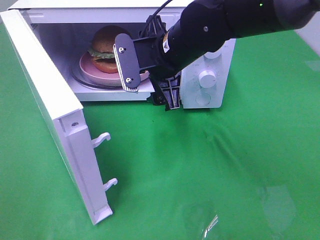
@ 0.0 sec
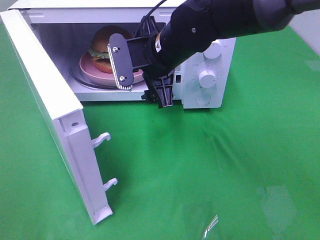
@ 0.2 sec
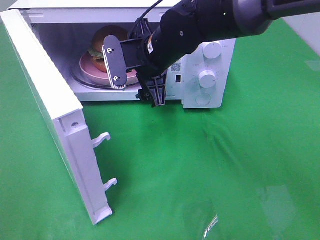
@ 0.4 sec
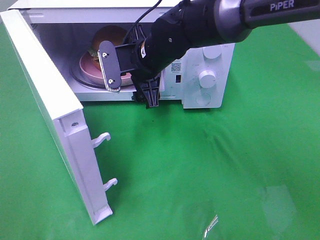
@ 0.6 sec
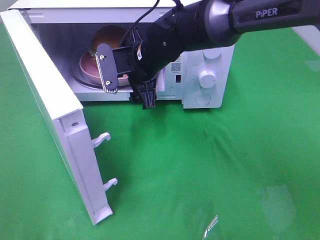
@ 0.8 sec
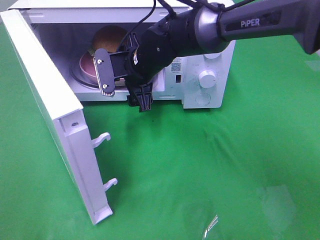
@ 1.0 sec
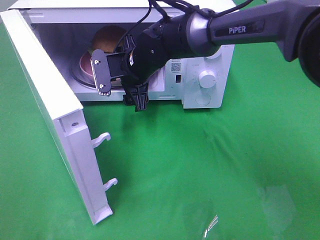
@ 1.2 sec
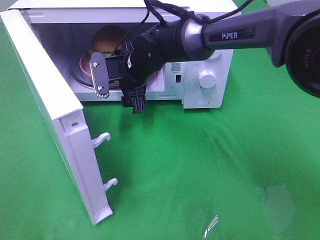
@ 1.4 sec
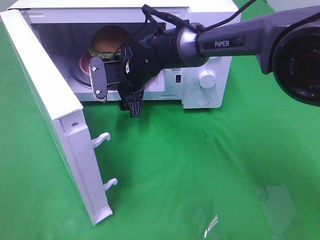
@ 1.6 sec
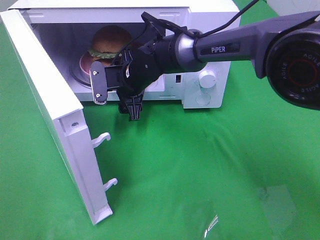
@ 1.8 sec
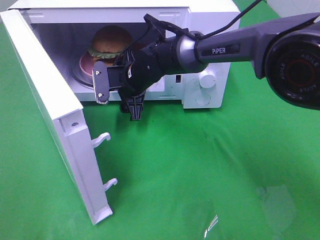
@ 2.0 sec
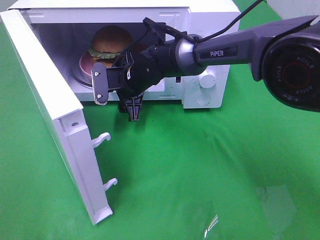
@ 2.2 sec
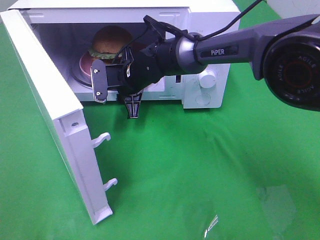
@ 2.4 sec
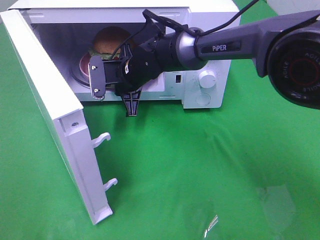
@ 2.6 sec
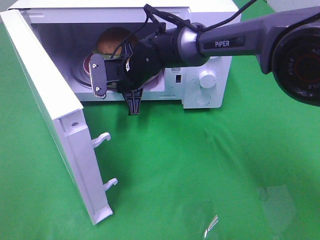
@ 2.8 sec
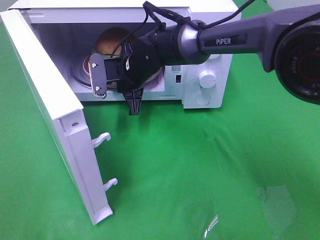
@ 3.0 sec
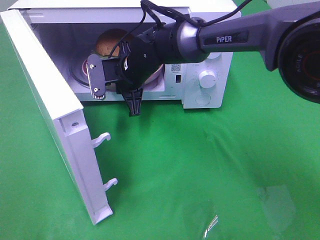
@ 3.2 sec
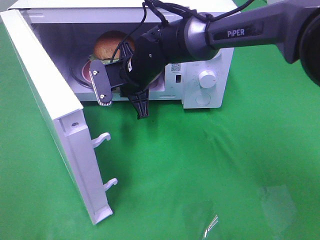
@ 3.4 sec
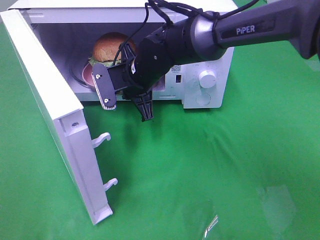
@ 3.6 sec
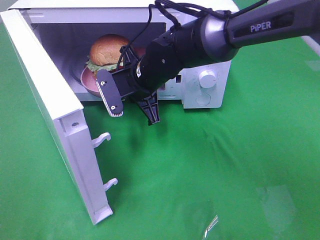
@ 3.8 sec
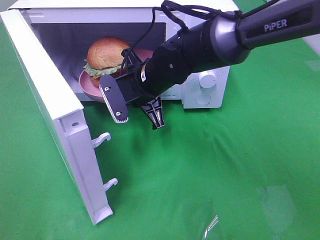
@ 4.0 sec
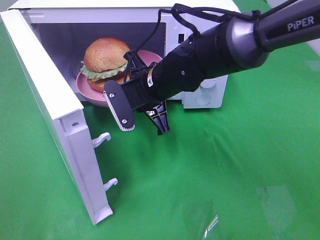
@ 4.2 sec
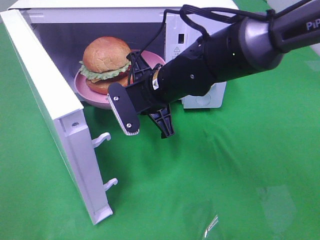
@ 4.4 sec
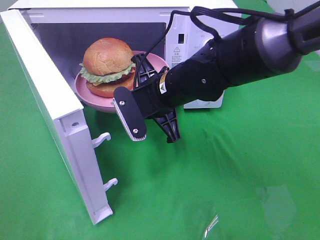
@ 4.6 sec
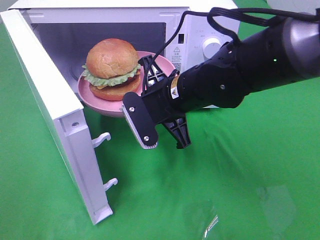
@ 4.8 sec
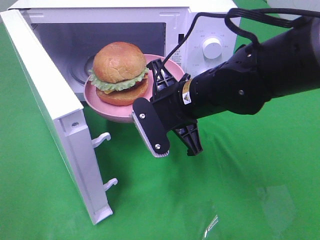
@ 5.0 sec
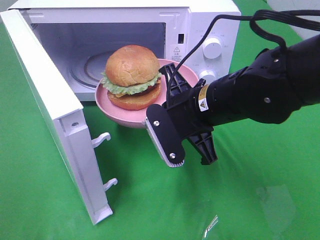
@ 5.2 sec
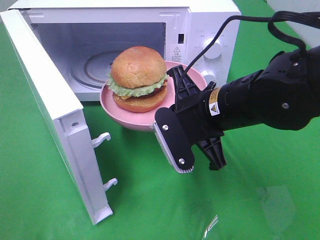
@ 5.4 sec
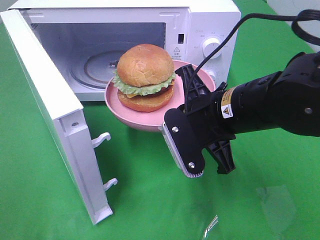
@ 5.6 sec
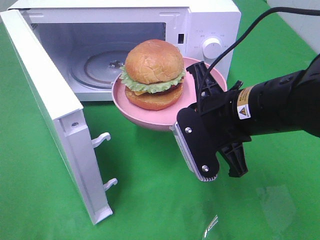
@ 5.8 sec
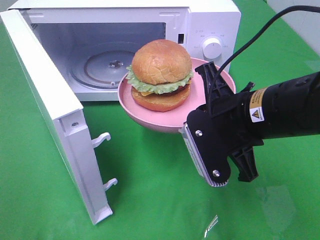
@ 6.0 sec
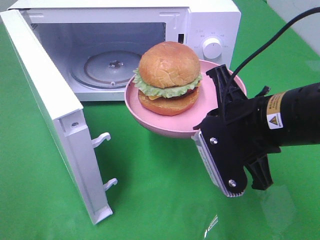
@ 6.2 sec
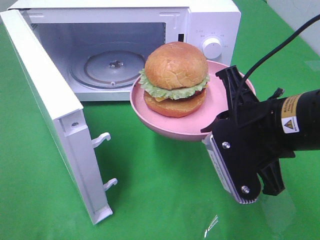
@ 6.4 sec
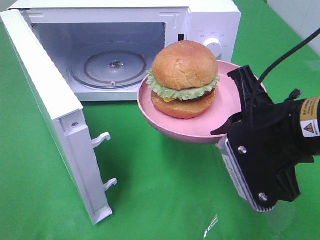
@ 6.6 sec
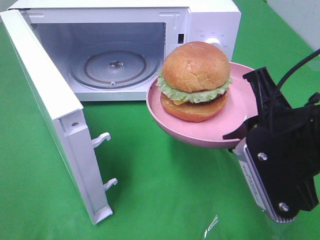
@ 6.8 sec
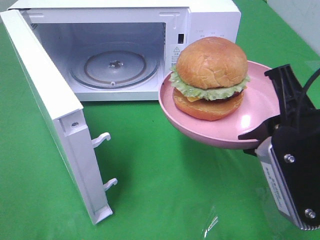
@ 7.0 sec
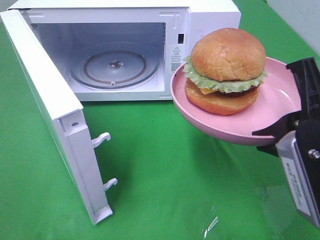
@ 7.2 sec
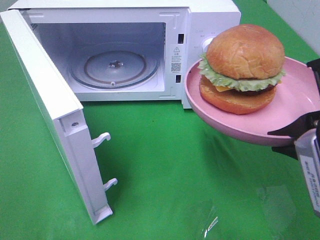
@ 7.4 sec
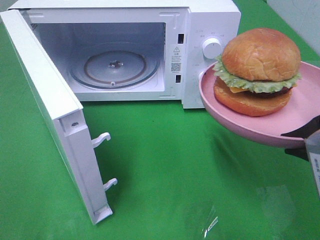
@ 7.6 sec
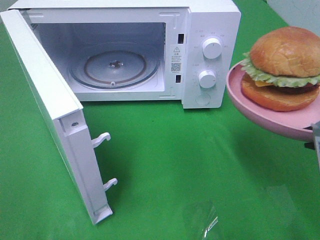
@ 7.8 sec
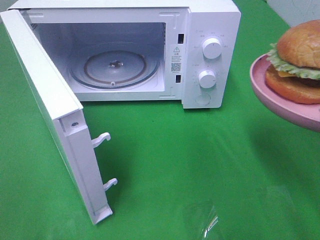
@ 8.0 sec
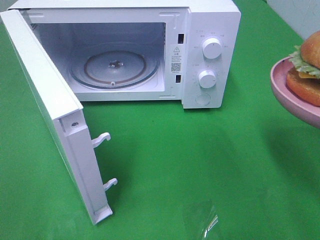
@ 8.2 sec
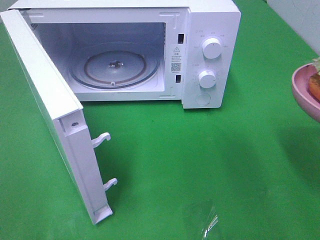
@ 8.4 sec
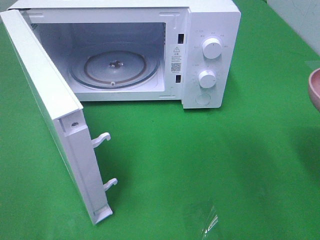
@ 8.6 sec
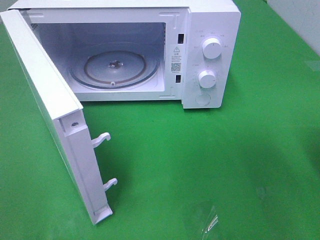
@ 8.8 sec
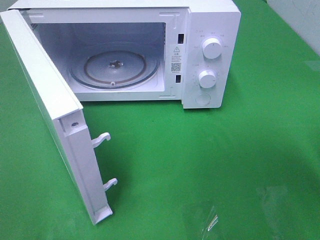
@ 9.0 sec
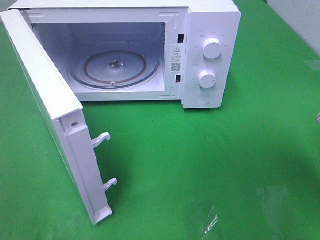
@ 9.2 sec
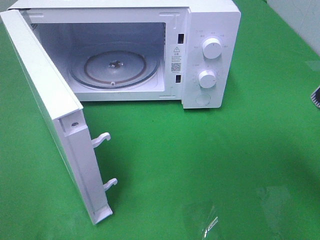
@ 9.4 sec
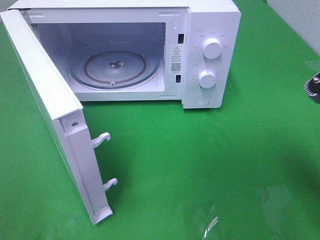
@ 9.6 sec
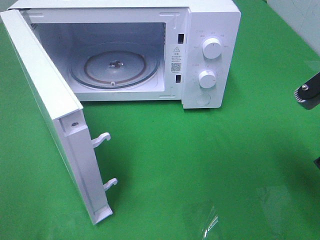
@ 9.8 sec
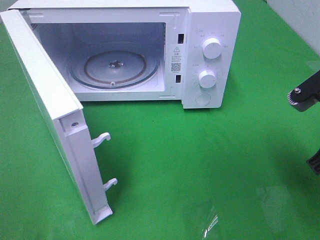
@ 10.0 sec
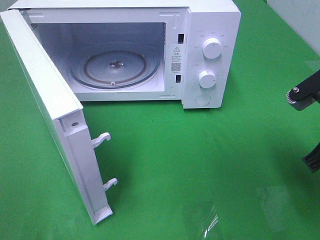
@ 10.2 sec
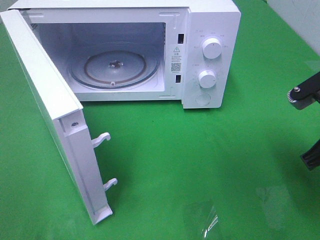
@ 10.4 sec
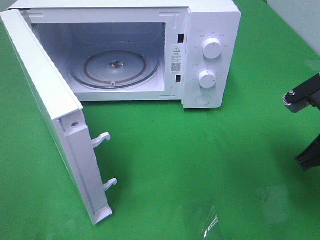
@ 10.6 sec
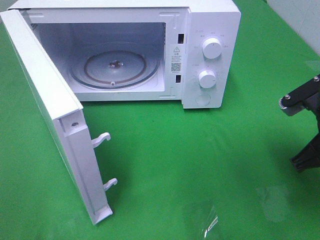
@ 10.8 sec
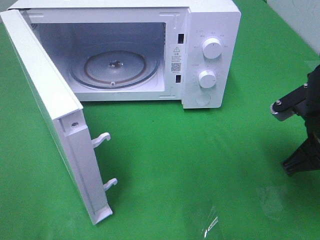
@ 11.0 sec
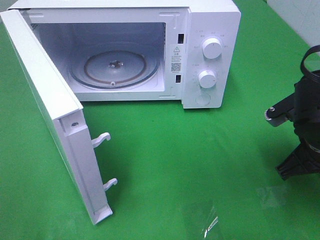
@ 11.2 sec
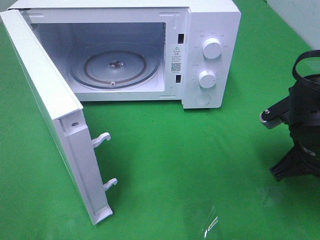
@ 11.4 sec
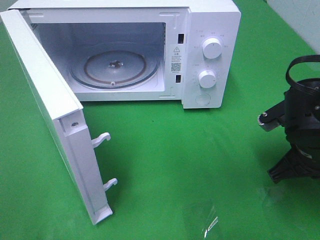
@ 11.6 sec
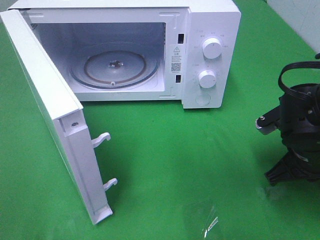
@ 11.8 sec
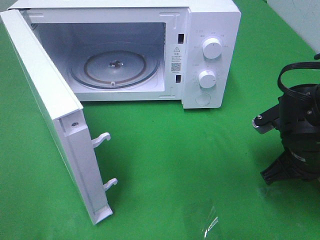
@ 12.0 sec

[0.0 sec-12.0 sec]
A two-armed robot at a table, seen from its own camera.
Task of the whole recording: Heat the burger.
Step, 0.0 sec to 2.6 sec: Right hand: grab the plate with the hamburger.
0.0 sec to 1.6 sec: The right gripper is displaced downward, forward and to the left by approximately 15 cm.
1.6 sec to 3.0 sec: The right gripper closes up.
3.0 sec to 4.4 sec: The right gripper shifts approximately 10 cm backward and to the right.
4.4 sec to 6.0 sec: The right gripper travels backward and to the right by about 15 cm.
6.0 sec to 7.6 sec: The right gripper travels to the right, backward and upward by some 15 cm.
9.0 sec to 10.4 sec: The right gripper travels forward by some 5 cm.
10.4 sec to 12.0 sec: The right gripper moves downward, roughly 10 cm.

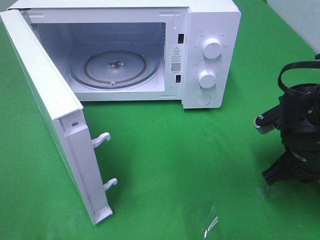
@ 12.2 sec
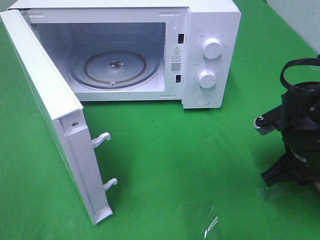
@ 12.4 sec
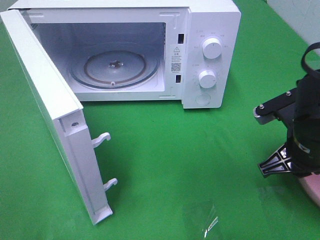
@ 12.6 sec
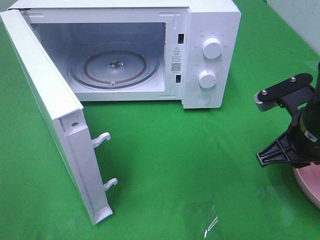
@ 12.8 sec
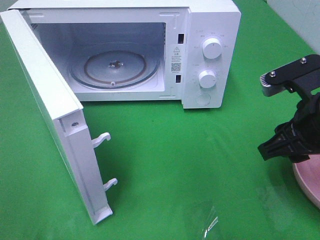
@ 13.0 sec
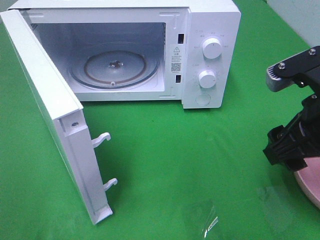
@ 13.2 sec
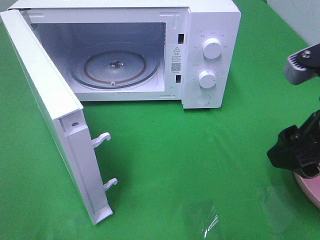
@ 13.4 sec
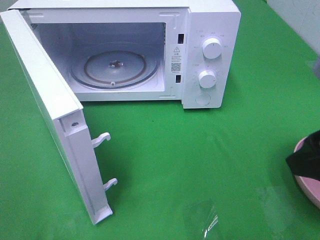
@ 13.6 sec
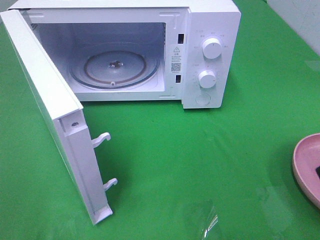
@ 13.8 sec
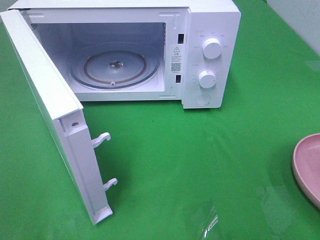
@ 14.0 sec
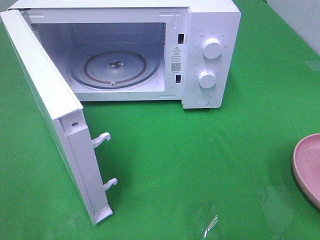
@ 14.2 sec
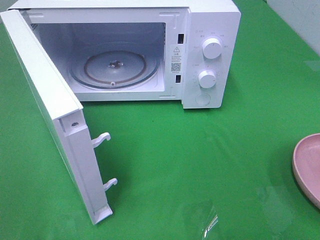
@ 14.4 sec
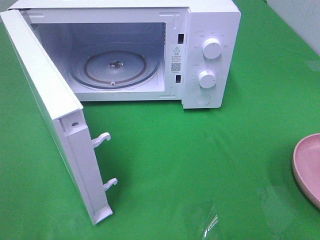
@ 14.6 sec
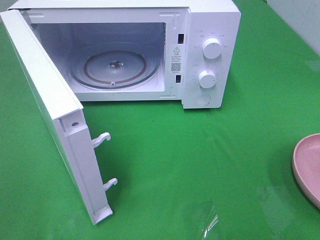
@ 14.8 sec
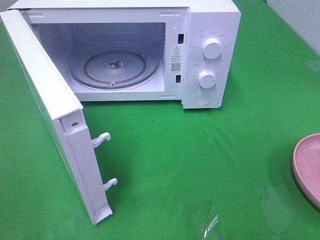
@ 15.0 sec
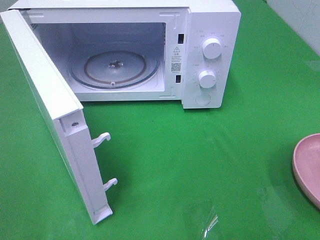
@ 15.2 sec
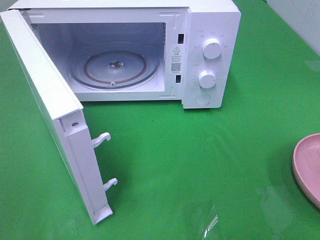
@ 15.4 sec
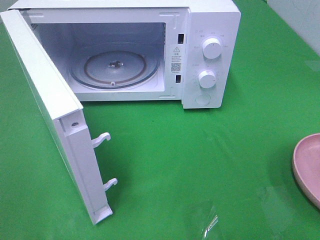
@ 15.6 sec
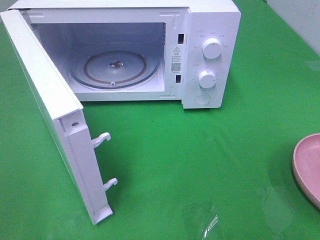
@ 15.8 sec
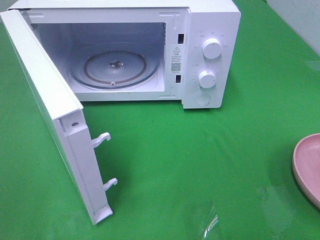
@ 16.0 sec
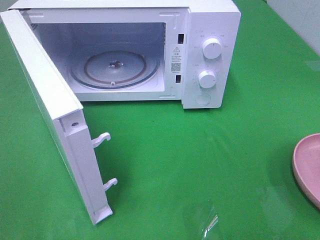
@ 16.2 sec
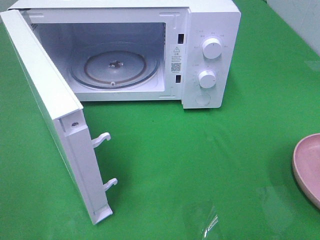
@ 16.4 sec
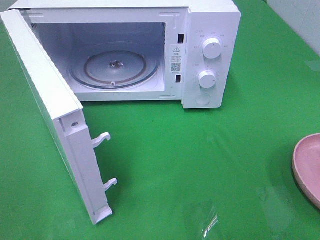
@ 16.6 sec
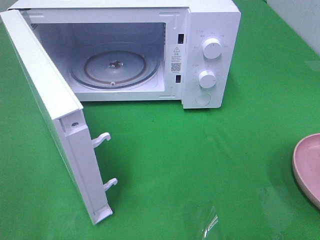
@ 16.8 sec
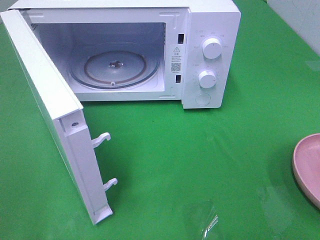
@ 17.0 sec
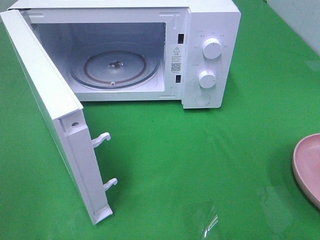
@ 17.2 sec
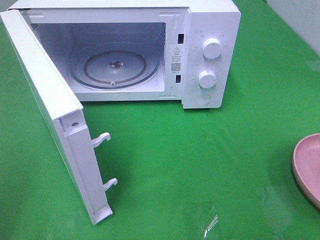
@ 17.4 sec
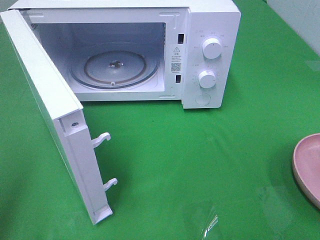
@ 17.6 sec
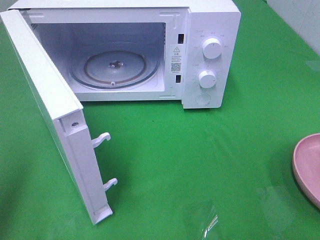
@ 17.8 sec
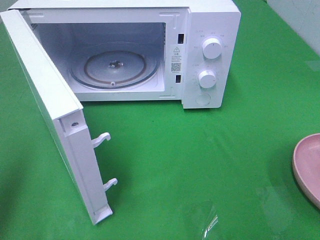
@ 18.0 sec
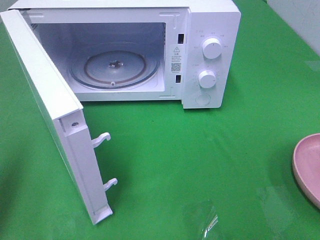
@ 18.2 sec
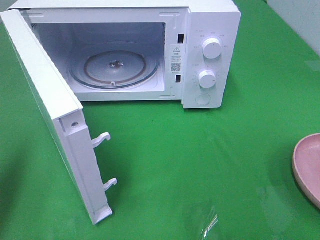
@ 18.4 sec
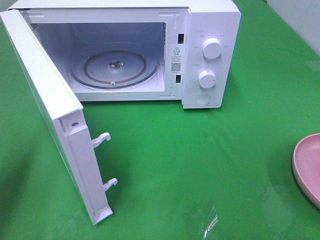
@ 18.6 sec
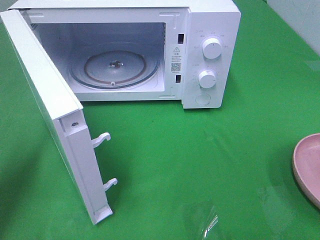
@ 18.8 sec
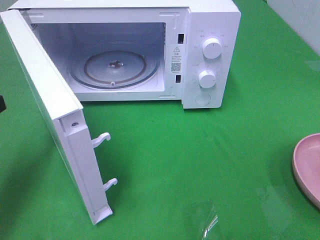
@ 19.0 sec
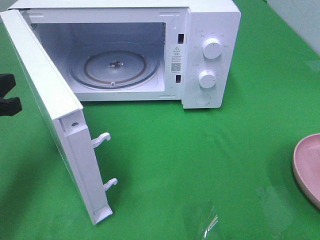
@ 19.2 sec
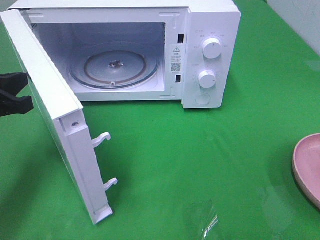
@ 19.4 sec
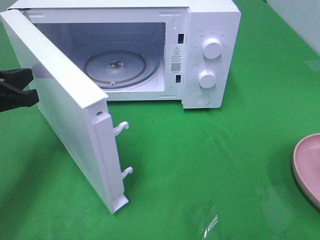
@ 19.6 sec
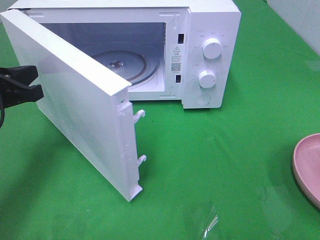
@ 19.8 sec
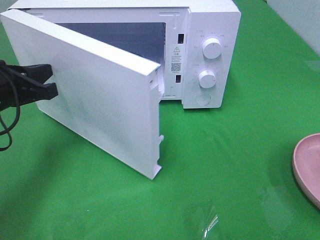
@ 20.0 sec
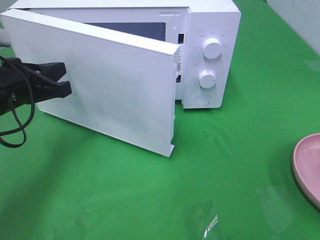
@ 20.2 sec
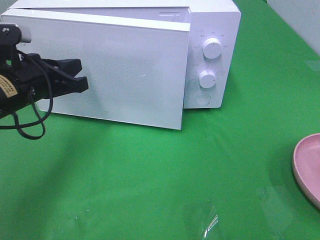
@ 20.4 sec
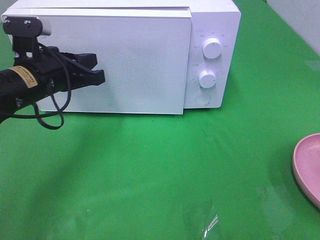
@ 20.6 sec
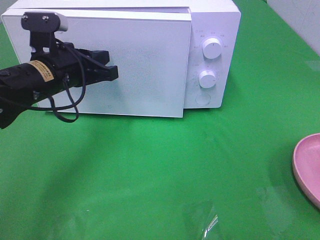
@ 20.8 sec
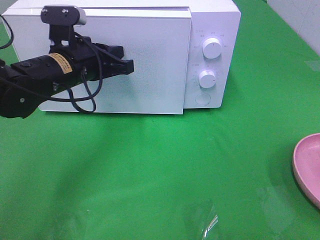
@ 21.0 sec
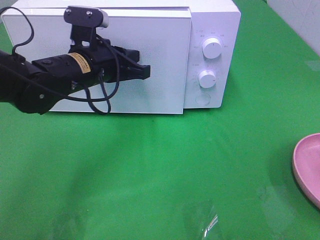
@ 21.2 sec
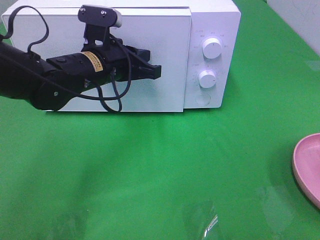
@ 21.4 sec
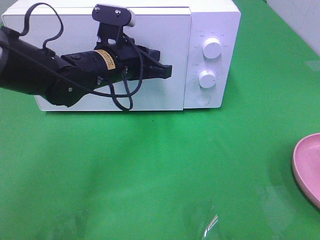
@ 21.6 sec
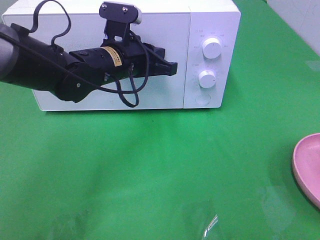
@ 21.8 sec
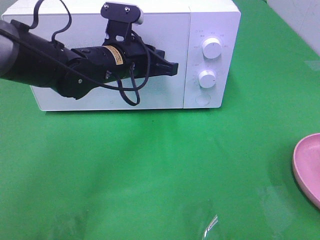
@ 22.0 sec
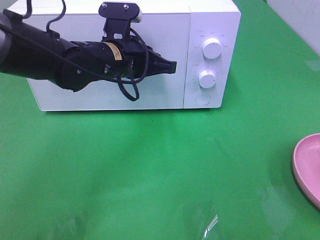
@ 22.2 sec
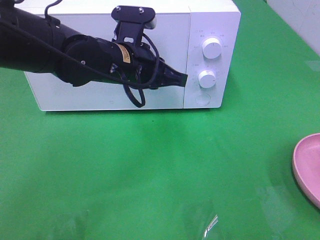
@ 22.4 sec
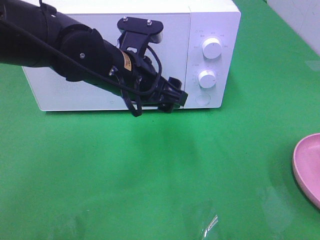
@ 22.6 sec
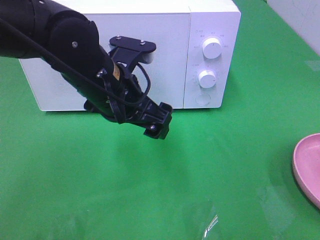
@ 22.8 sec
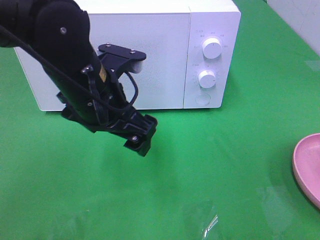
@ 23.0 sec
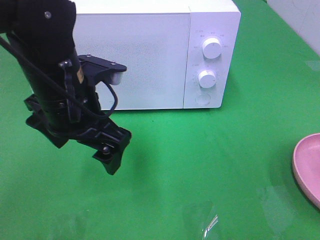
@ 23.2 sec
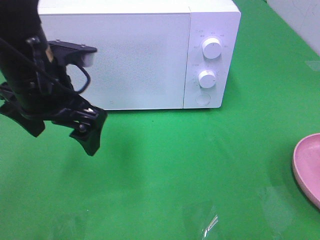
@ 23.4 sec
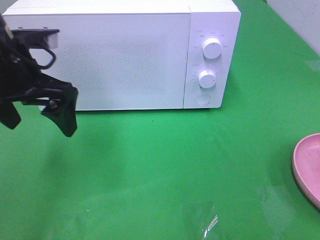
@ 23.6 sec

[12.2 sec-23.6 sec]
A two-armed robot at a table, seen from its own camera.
Task of the whole recording: Heat the burger.
Step, 13.2 sec to 22.4 sec: Left hand: close the microwave door.
12.2 sec to 13.6 sec: The right gripper shifts some 20 cm upward and backward, and opens its fingers.
13.6 sec to 15.0 sec: The right gripper moves backward and to the right, roughly 15 cm.
15.0 sec to 16.4 sec: Both grippers stay put.
16.4 sec to 17.8 sec: The left gripper heads forward, covering some 10 cm, and closes up.
17.8 sec to 19.4 sec: The left gripper travels forward and downward by roughly 20 cm.
19.4 sec to 20.8 sec: The left gripper shifts approximately 15 cm to the right and forward.
20.8 sec to 22.2 sec: The left gripper heads to the right, covering approximately 10 cm.
22.2 sec to 23.6 sec: The left gripper shifts some 15 cm to the left, backward and upward, and opens up.
